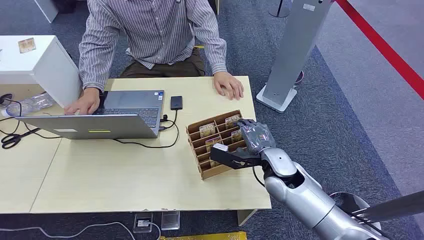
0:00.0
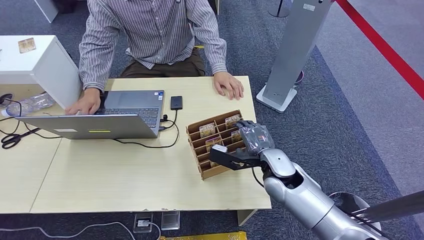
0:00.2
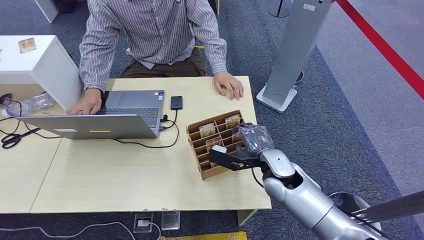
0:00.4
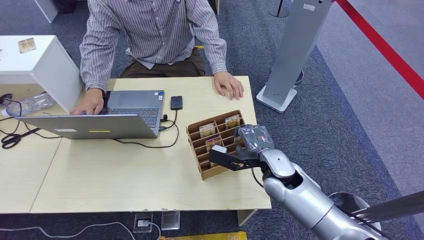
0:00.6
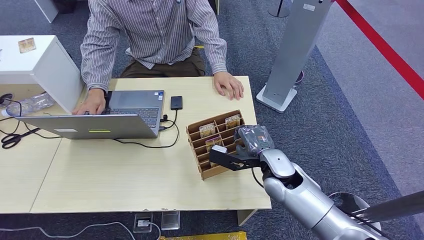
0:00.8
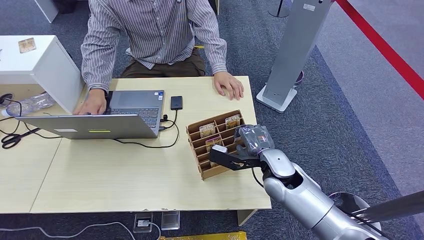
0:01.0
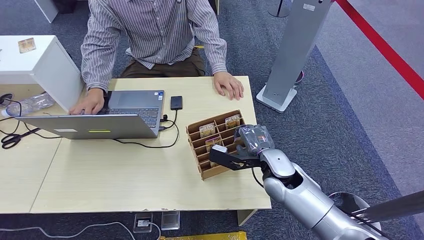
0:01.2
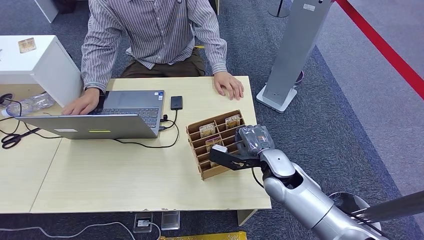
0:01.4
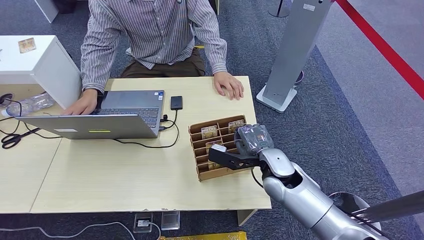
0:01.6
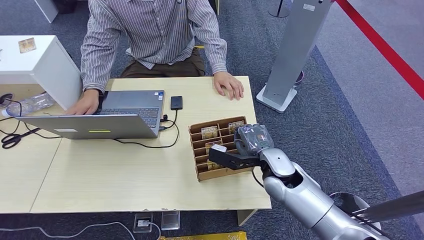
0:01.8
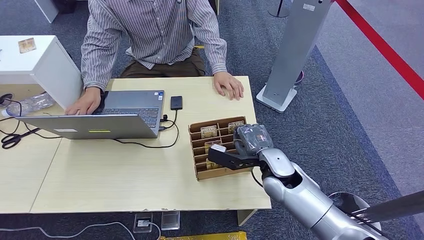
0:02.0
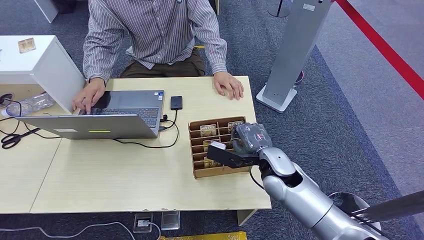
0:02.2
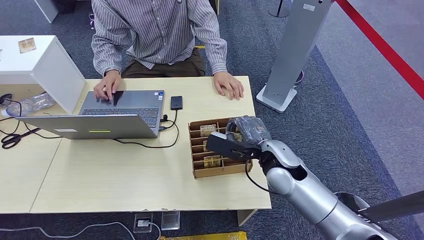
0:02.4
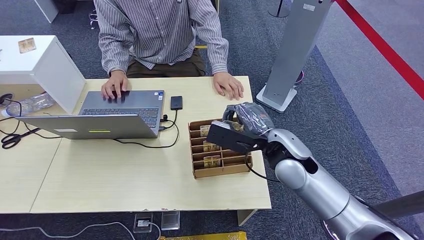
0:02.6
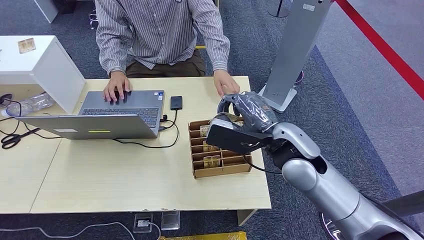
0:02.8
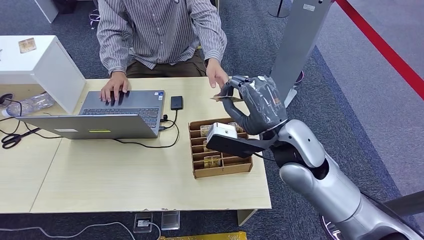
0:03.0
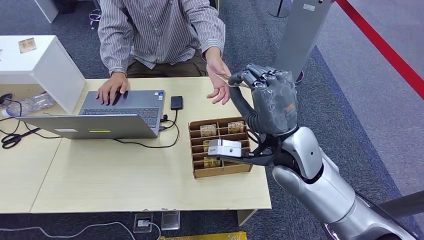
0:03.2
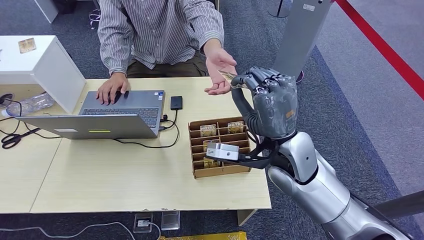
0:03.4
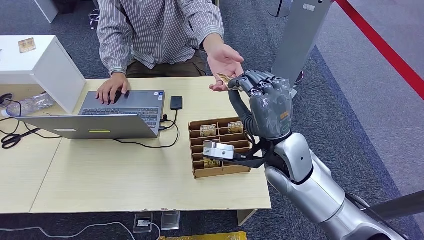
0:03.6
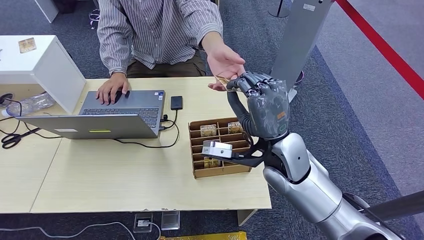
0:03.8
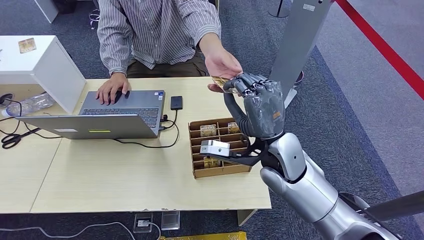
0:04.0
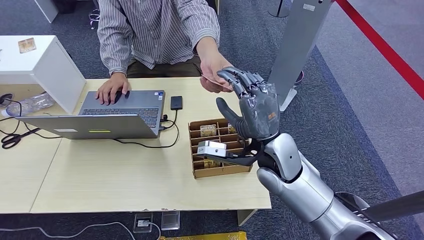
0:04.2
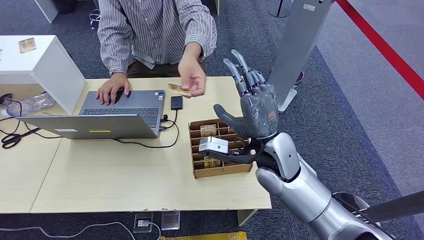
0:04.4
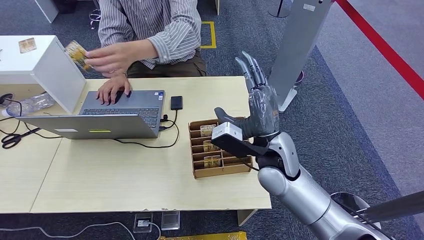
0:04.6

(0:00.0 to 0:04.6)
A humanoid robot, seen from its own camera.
Step, 0:00.0 - 0:02.4: Pick up the room card from the card holder.
Step, 0:03.6 - 0:04.6: Hand the room card to the target.
0:03.0 - 0:04.6: The right hand moves downward, about 5 cm.
